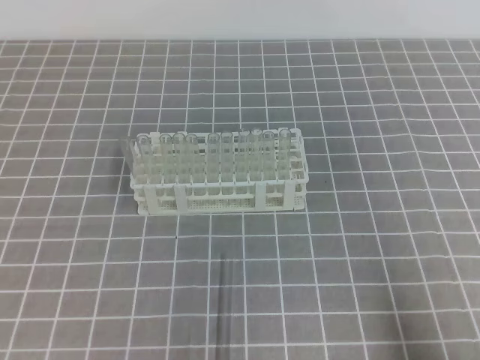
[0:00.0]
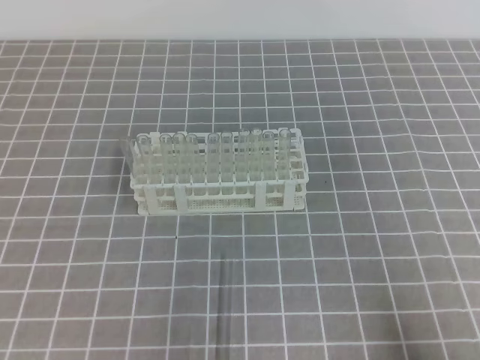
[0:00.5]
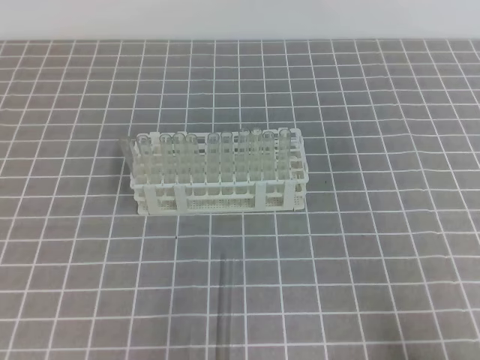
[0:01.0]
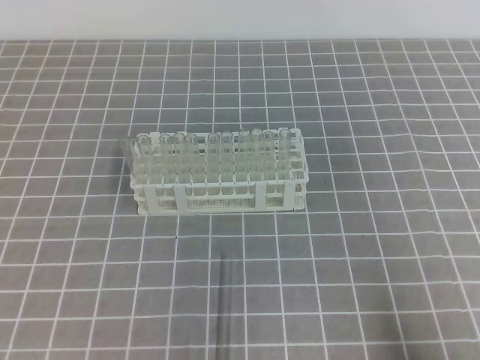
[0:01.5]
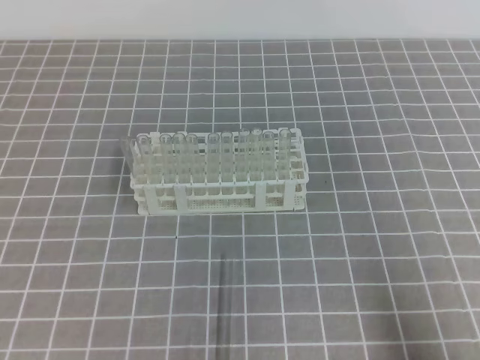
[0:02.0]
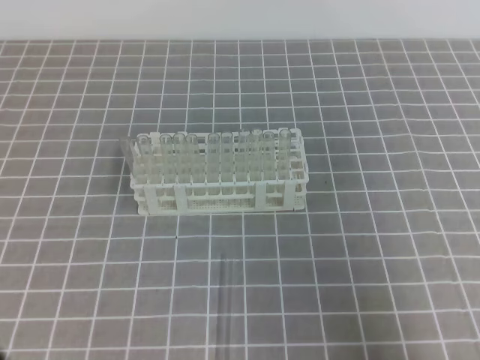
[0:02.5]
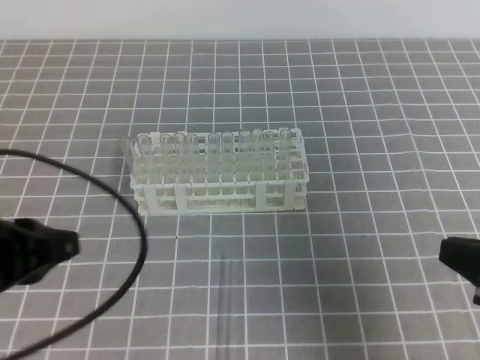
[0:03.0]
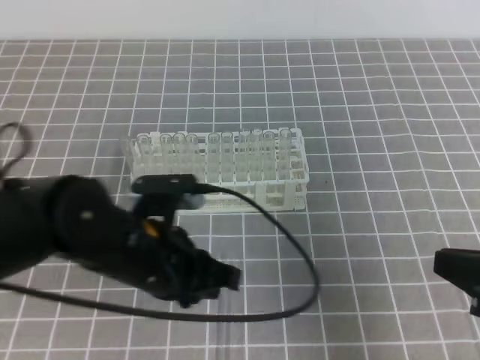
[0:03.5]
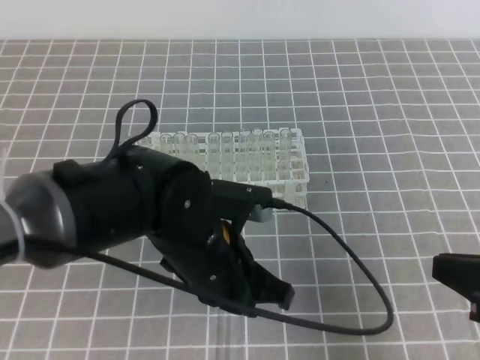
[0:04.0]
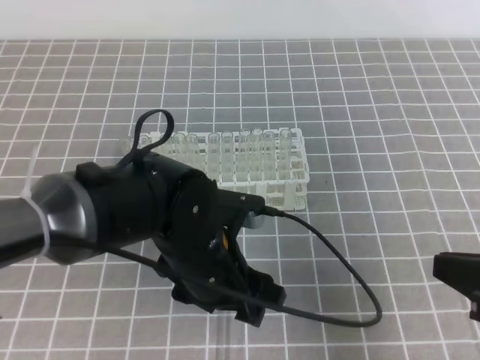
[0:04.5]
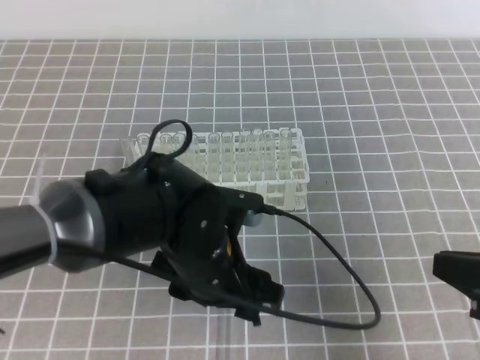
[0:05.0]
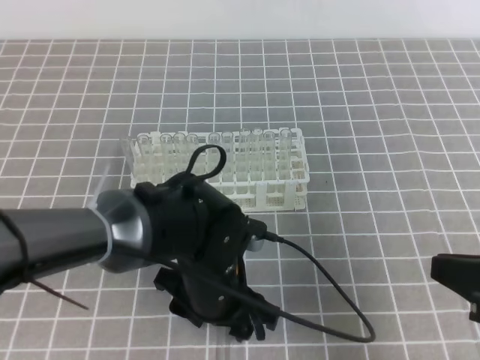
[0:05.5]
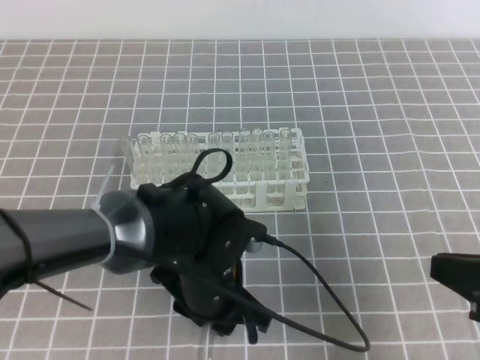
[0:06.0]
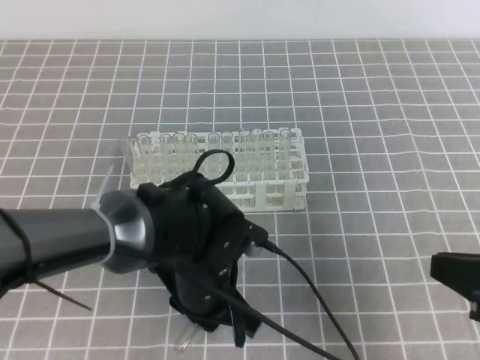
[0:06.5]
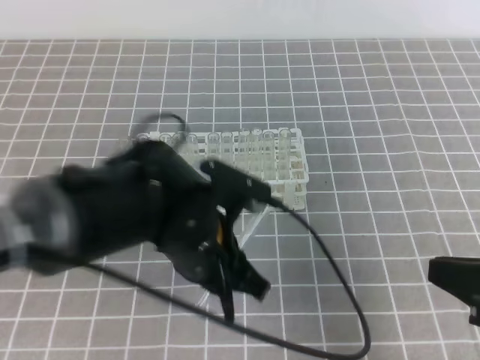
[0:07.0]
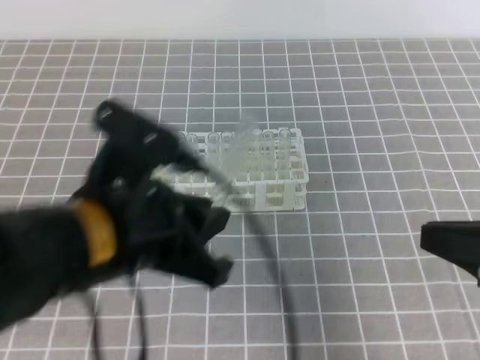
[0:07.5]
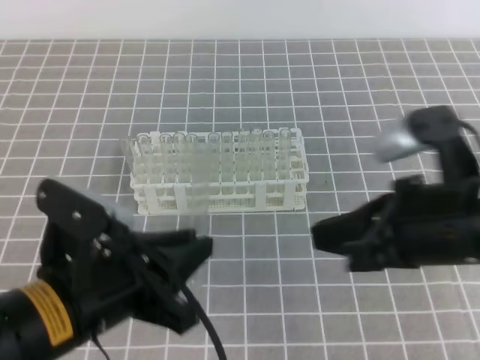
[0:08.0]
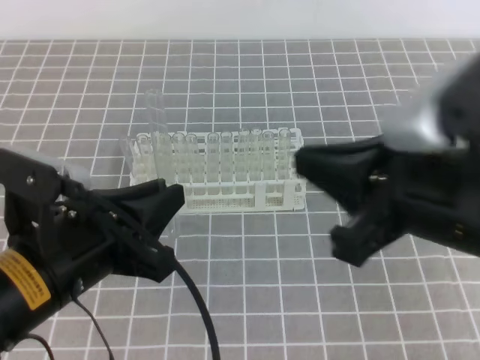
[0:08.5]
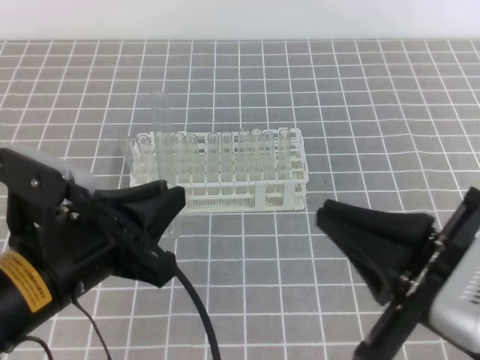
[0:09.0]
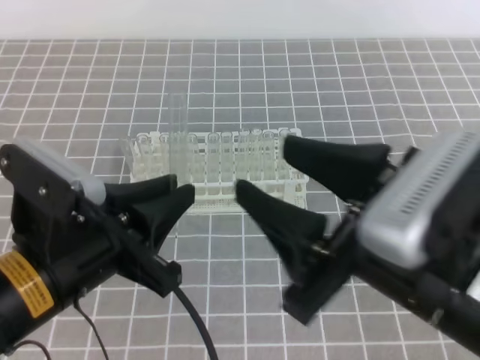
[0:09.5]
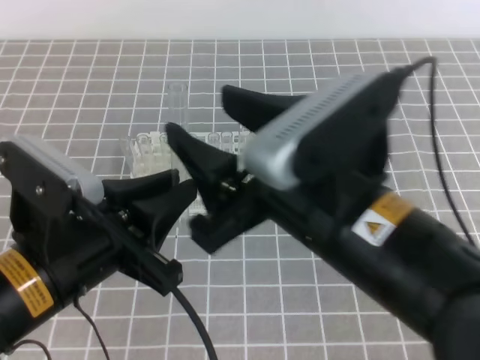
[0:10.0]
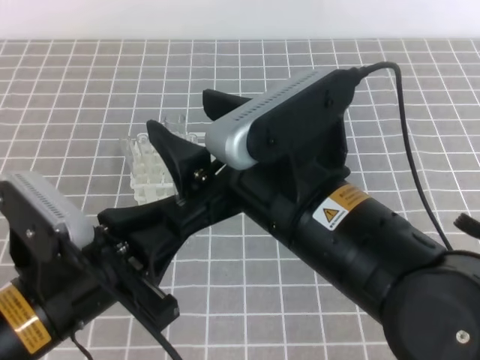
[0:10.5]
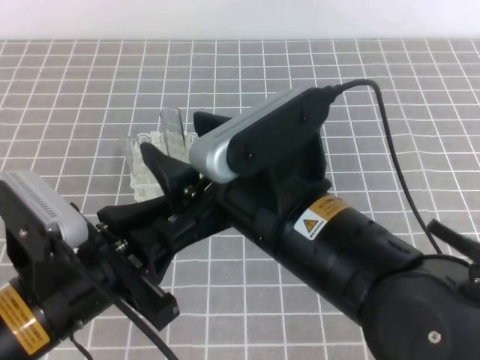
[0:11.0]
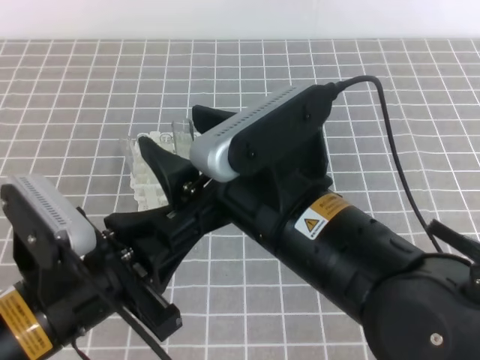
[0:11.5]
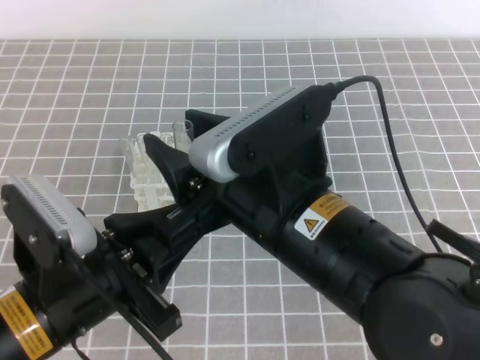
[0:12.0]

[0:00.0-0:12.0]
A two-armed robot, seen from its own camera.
0:02.0 to 0:04.0: The right gripper travels forward and upward by about 10 cm. The left gripper is displaced to the right and forward by some 30 cm.
0:04.0 to 0:06.0: The left gripper heads downward, covering about 5 cm, and opens, then closes again.
0:06.0 to 0:08.0: The left gripper goes roughly 15 cm upward, to the left and backward, and closes. Meanwhile the right gripper goes some 10 cm to the left.
0:08.0 to 0:10.0: The right gripper goes roughly 10 cm to the left, and opens its fingers.

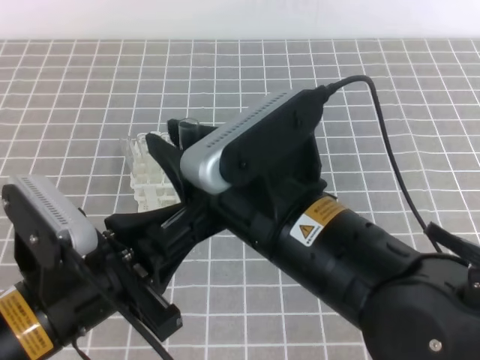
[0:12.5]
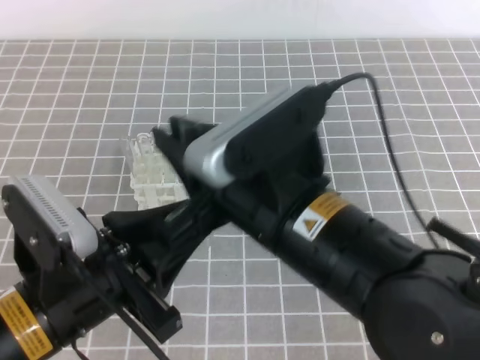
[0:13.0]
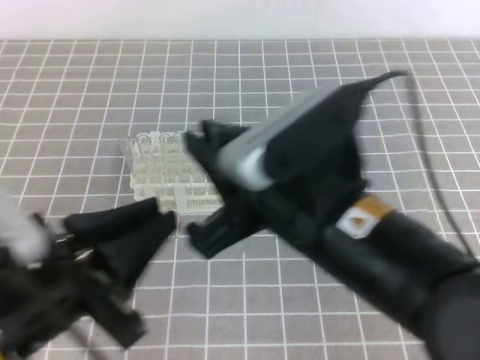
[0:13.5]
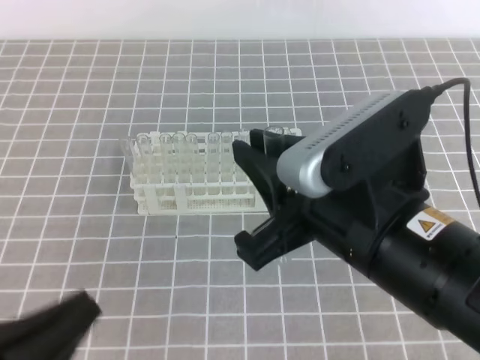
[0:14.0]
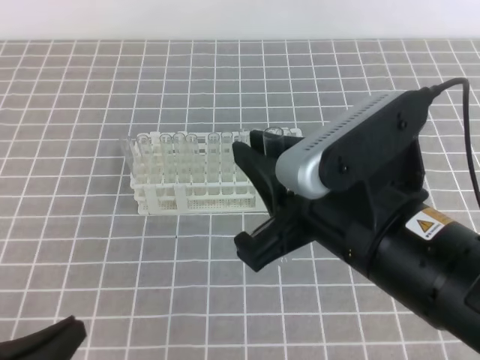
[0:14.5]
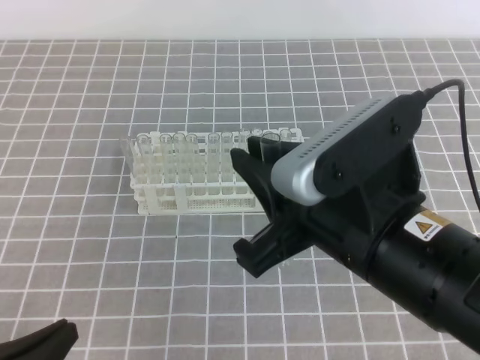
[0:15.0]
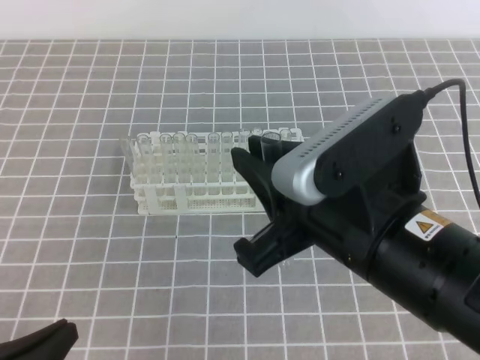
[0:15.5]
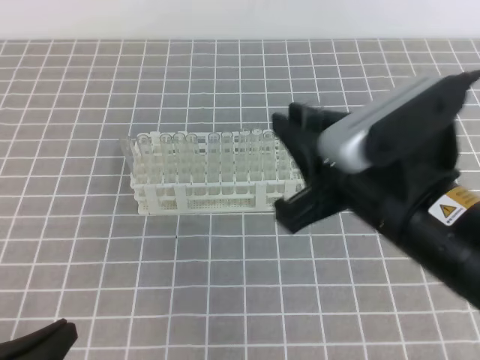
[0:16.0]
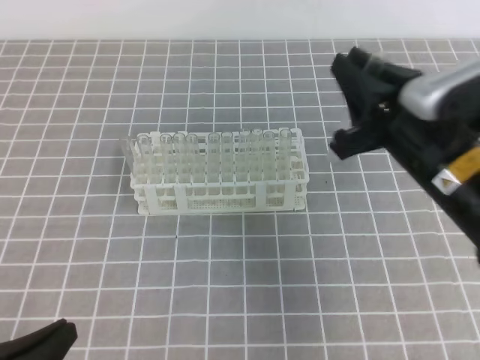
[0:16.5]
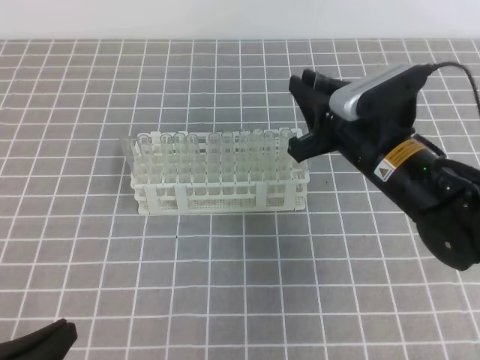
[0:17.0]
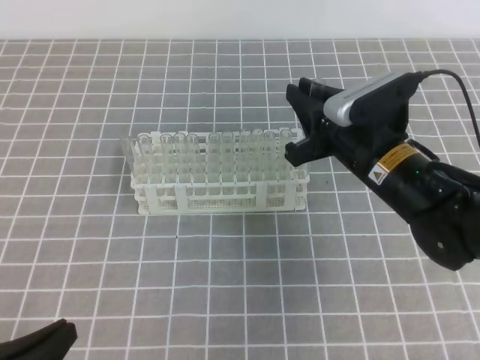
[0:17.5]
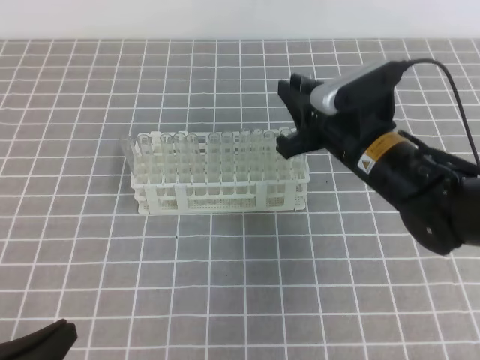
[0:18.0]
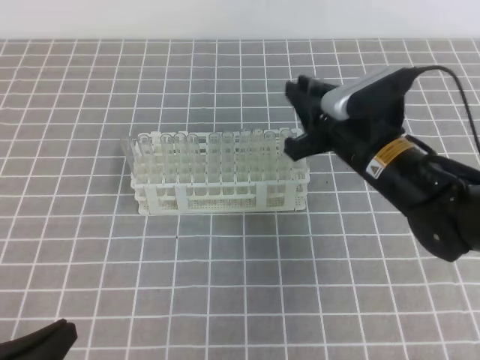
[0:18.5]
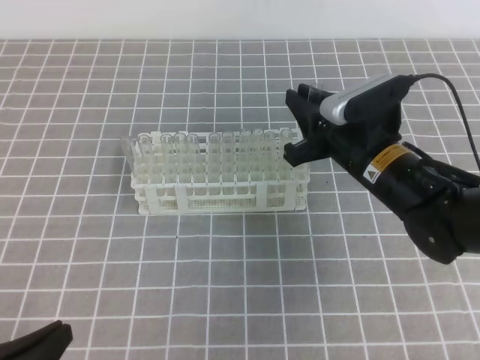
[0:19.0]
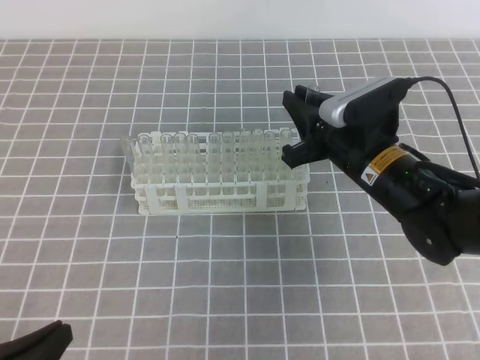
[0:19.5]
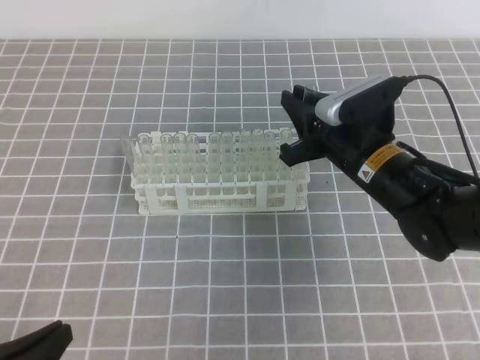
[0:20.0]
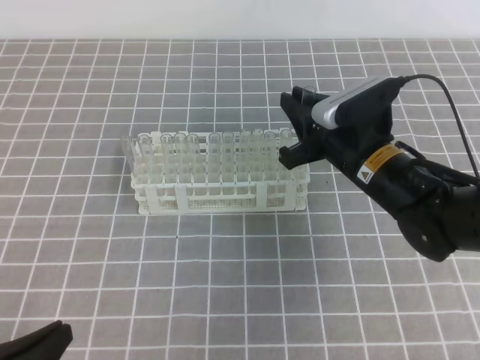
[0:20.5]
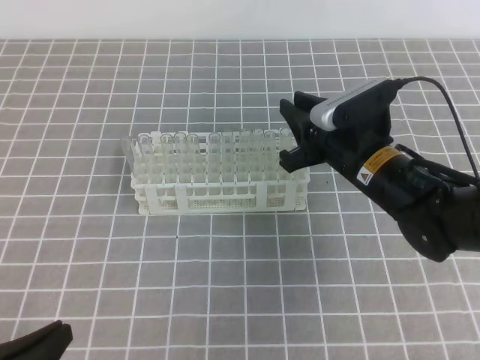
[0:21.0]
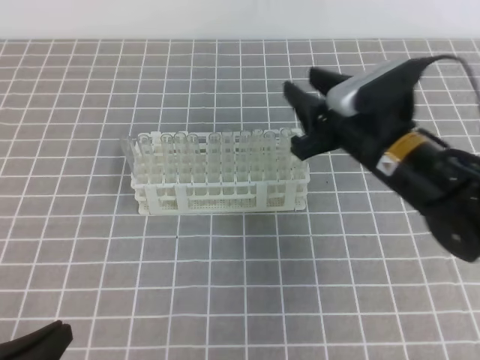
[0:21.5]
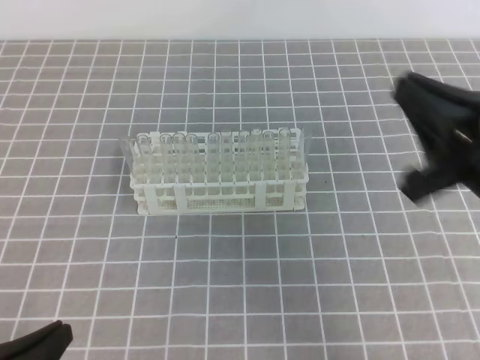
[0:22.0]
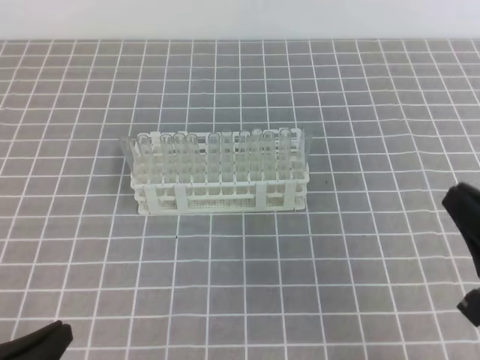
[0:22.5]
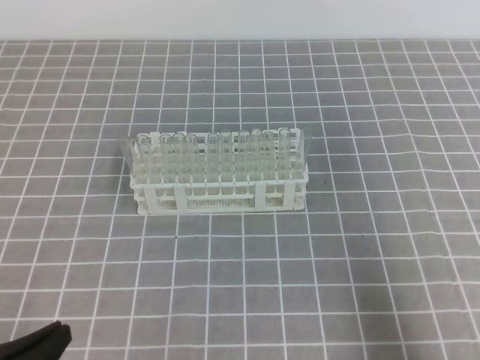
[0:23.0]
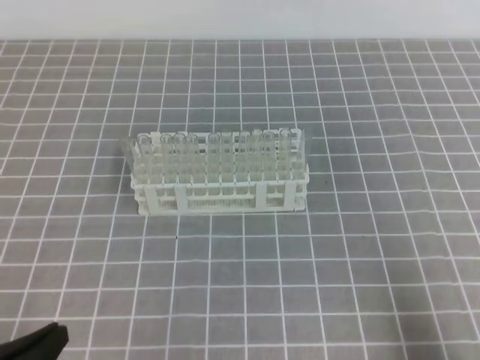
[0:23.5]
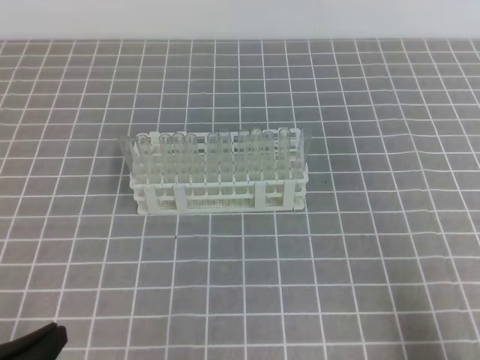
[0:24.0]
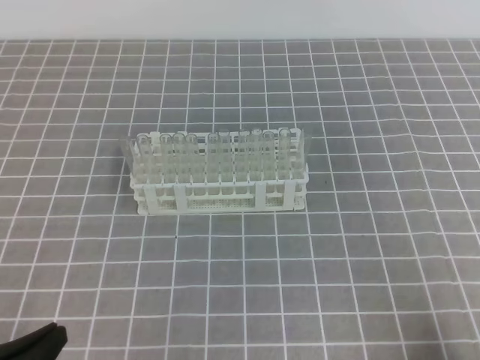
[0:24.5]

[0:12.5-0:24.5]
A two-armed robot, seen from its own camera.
0:12.5 to 0:14.5: The right gripper shifts approximately 5 cm to the right. The left gripper heads to the left, backward and downward, covering roughly 15 cm.
0:14.5 to 0:16.5: The right gripper travels forward and to the right by some 10 cm.
0:16.5 to 0:18.5: The right gripper travels forward and downward by about 10 cm.
0:18.5 to 0:20.5: The grippers stay close to where they were, moving slightly.
0:20.5 to 0:22.5: The right gripper heads backward and to the right, covering approximately 25 cm, and opens, then closes again.
0:22.5 to 0:24.5: The right gripper is displaced downward, backward and to the right by some 15 cm.
